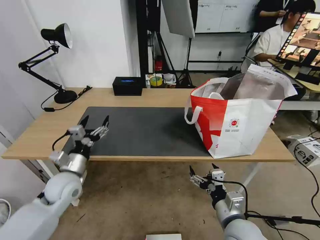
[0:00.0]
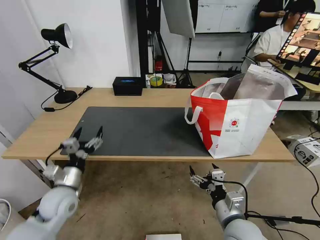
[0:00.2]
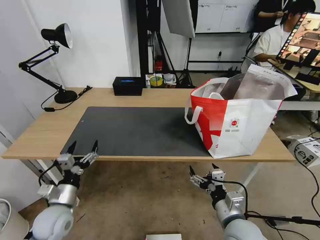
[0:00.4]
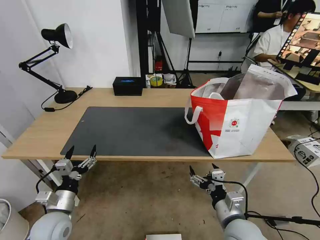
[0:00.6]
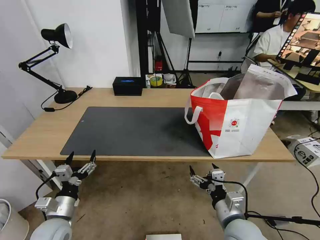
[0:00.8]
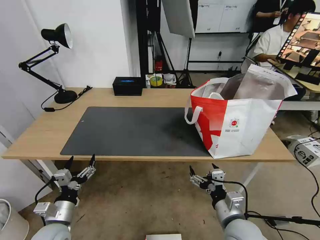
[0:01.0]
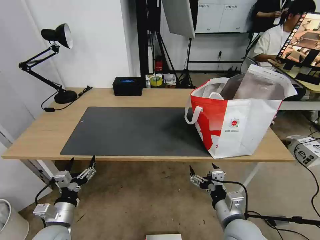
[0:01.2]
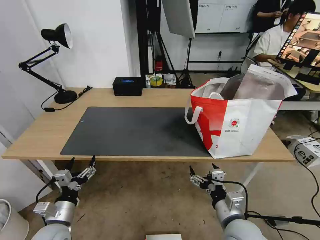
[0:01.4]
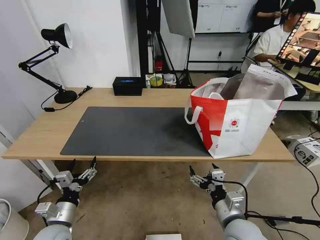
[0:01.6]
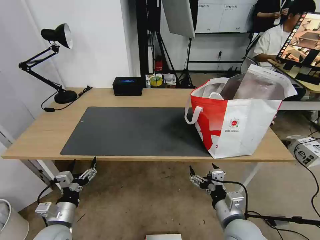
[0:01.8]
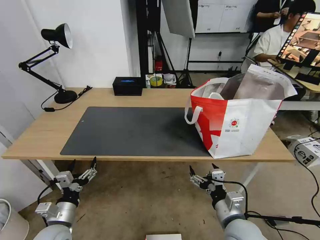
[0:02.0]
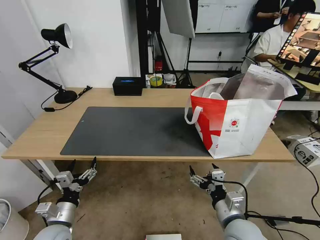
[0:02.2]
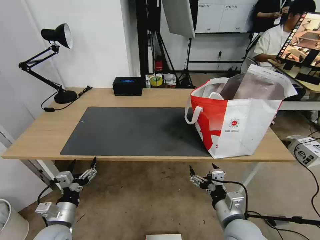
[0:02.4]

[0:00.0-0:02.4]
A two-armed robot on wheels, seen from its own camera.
Task of the whole recording: Pick up the trash from the table and place it into the takeout bag.
0:00.0 to 0:01.2: The left gripper moves backward and downward, about 15 cm.
0:01.2 to 0:02.4: Both grippers stay about where they are.

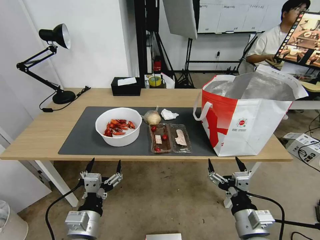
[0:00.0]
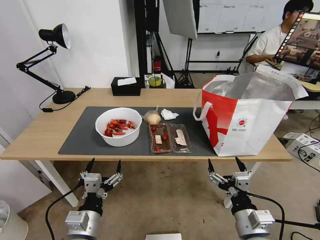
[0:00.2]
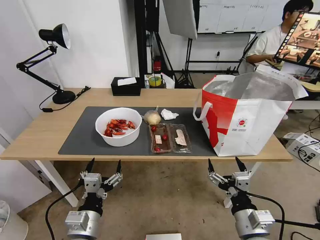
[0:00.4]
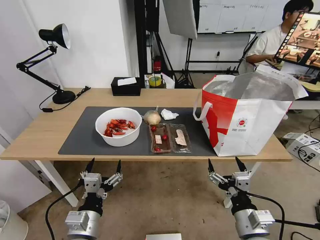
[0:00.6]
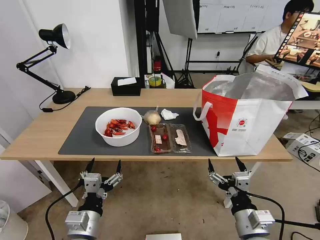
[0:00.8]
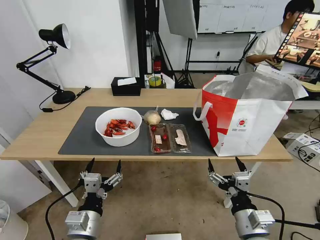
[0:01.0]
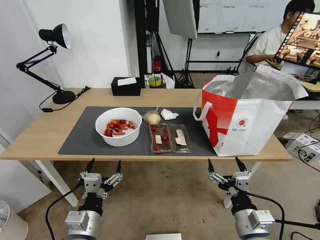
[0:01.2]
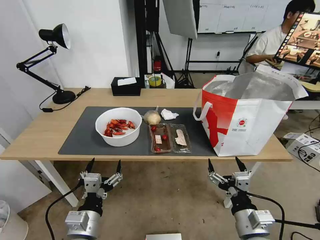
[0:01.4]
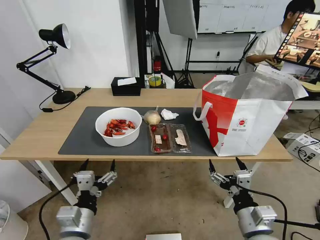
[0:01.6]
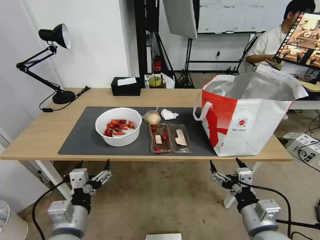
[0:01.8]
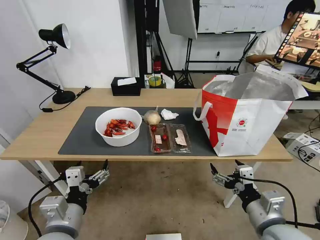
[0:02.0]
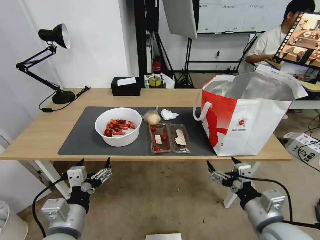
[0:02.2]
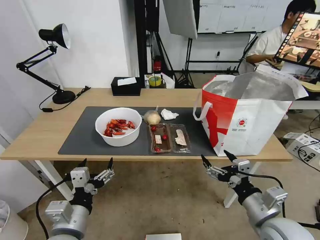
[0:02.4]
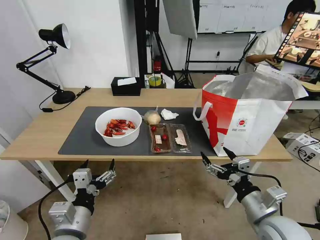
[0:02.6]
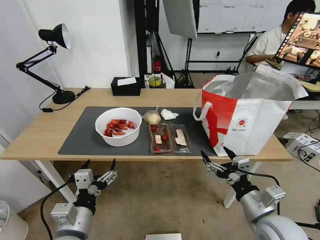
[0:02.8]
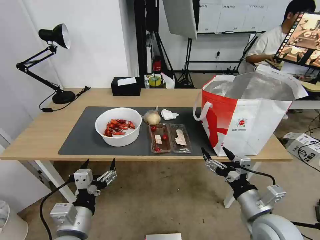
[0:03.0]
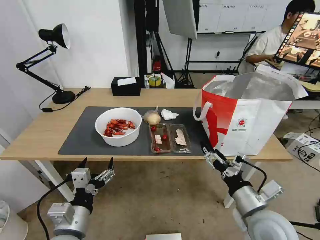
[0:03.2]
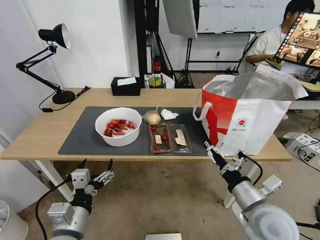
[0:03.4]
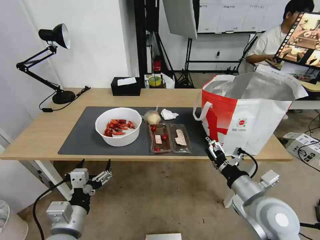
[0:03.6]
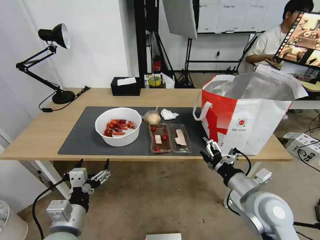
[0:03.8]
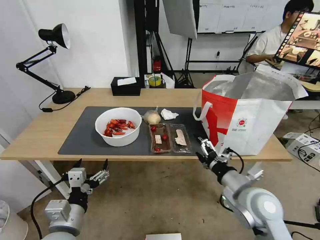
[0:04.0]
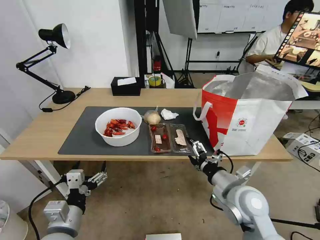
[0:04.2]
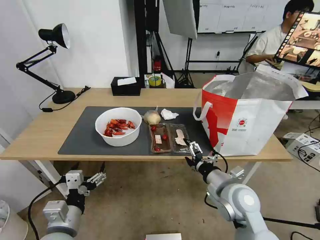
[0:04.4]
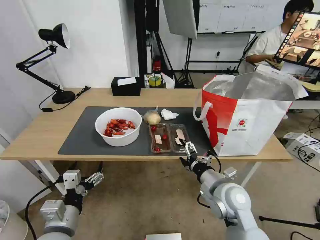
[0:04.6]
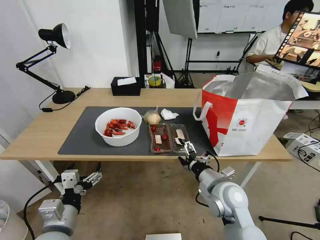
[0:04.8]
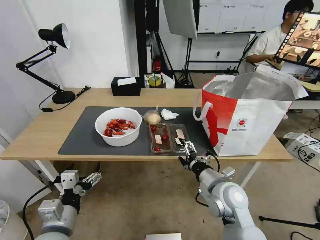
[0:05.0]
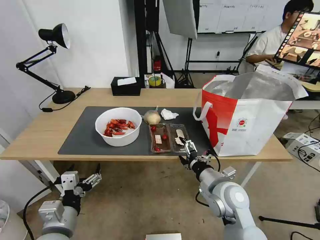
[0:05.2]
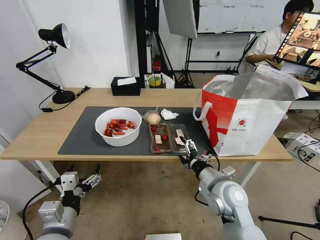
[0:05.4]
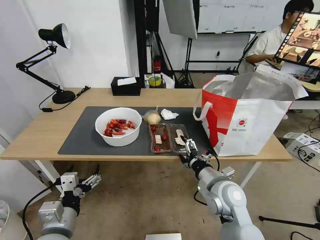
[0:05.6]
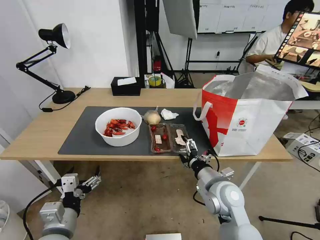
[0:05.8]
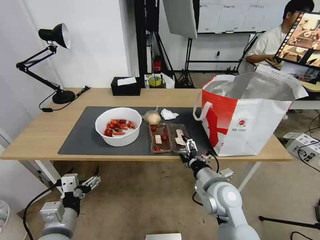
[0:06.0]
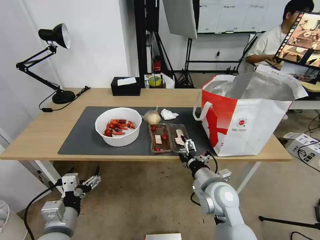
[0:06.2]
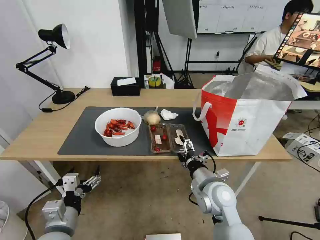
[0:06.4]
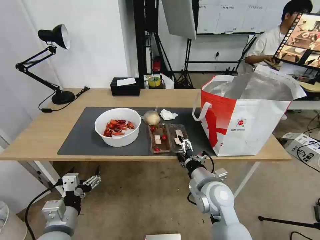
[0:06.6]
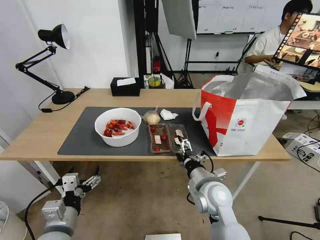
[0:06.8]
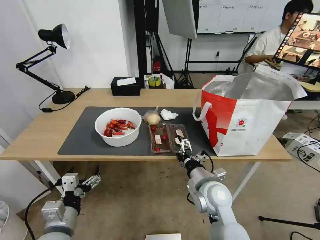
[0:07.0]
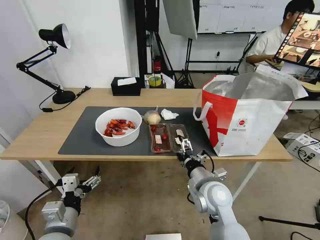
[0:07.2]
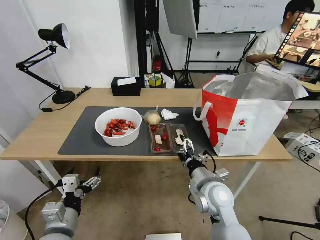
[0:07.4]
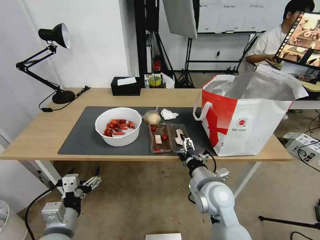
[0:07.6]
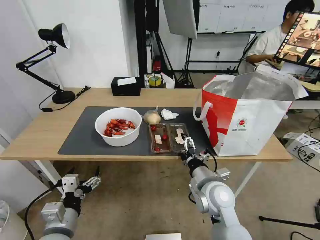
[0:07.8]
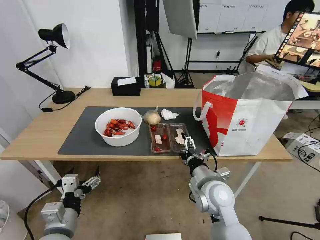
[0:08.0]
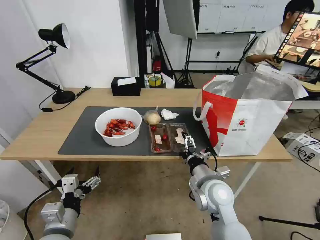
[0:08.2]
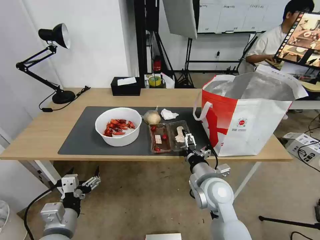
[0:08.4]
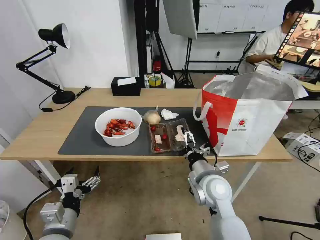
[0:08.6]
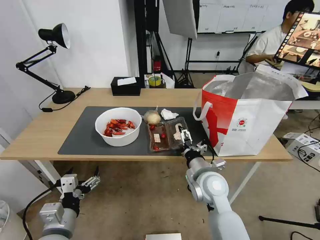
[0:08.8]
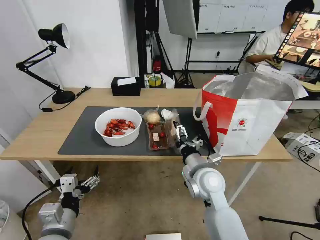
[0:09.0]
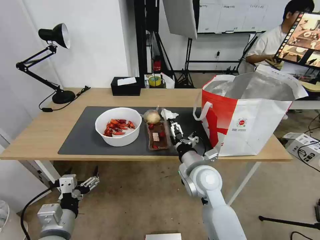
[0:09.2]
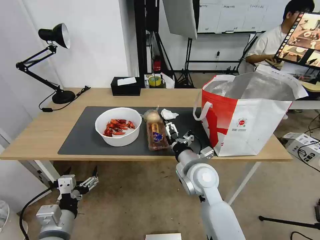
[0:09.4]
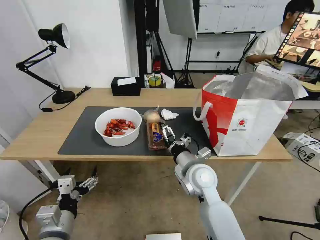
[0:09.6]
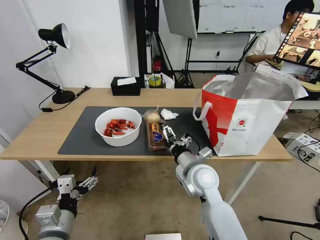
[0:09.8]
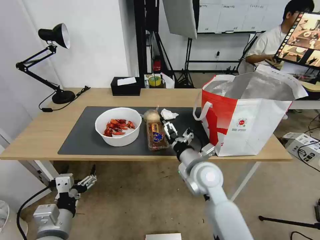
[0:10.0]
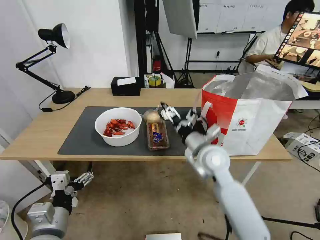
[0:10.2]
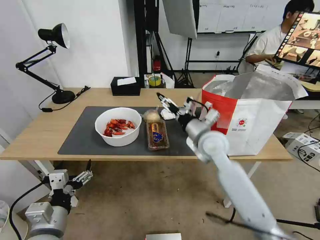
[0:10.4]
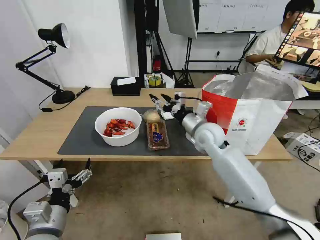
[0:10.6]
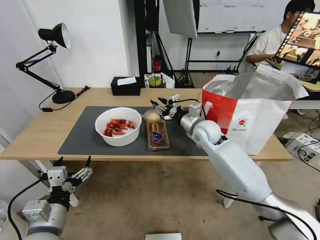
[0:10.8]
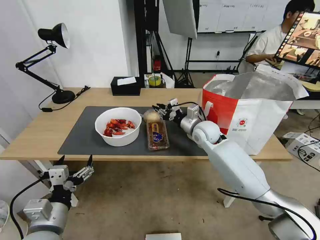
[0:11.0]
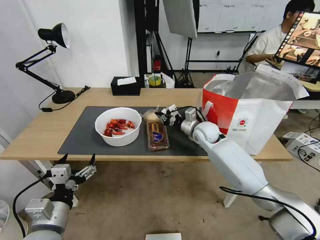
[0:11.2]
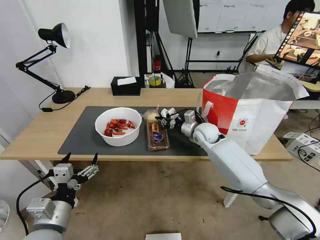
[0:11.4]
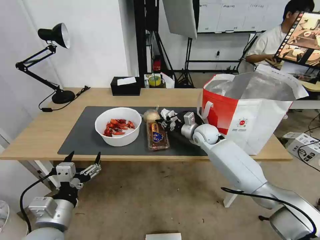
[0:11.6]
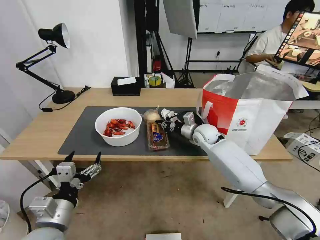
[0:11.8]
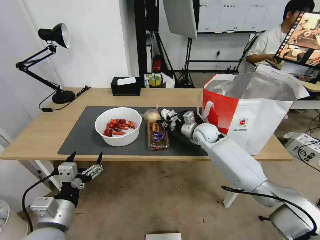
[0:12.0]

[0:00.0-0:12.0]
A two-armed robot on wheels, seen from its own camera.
Task of the whole recording: Pick up the trash from the table and place it into the takeout bag.
0:01.6 to 0:03.0: The right gripper moves approximately 5 cm.
0:03.0 to 0:04.4: The right gripper goes roughly 10 cm forward and to the left.
0:04.4 to 0:07.6: The grippers move only a little.
0:07.6 to 0:09.0: The grippers move only a little.
0:09.0 to 0:10.4: The right gripper is displaced forward and upward by about 10 cm.
0:10.4 to 0:12.0: The right gripper is displaced forward and downward by approximately 15 cm, and closes.

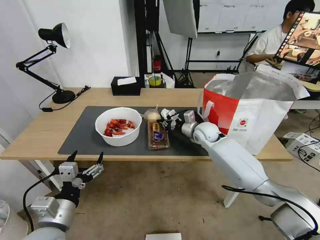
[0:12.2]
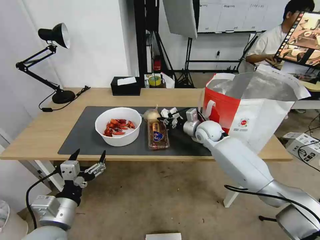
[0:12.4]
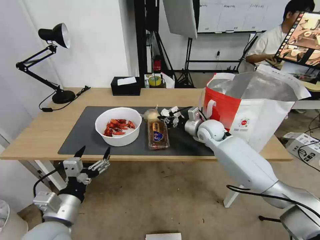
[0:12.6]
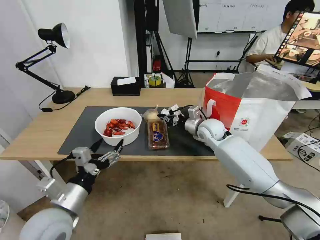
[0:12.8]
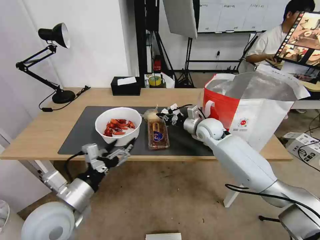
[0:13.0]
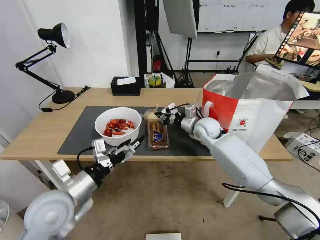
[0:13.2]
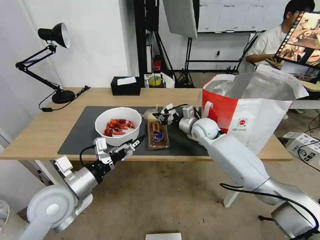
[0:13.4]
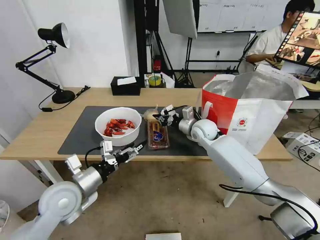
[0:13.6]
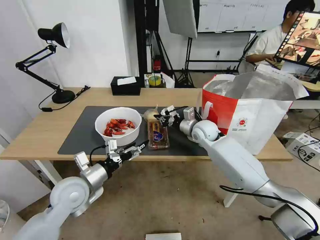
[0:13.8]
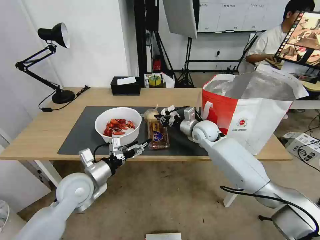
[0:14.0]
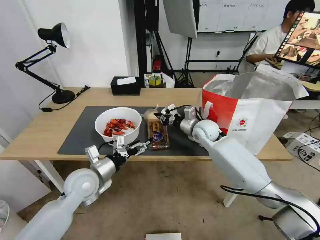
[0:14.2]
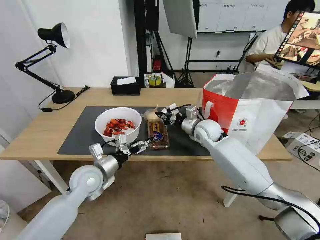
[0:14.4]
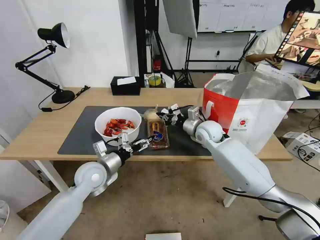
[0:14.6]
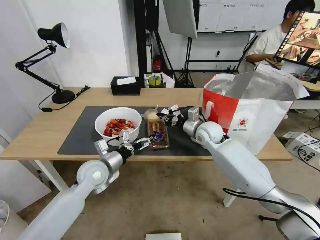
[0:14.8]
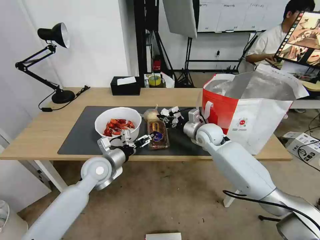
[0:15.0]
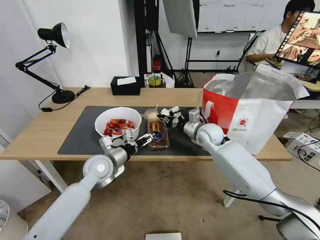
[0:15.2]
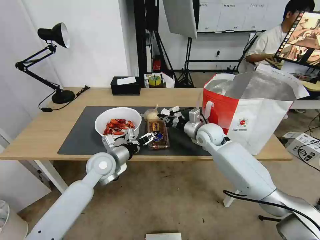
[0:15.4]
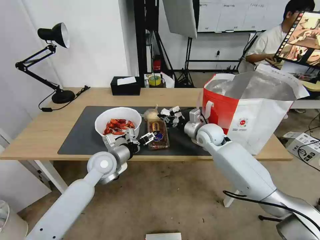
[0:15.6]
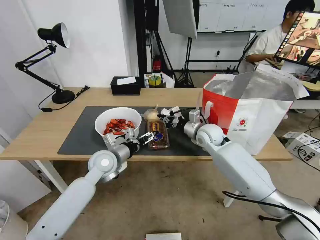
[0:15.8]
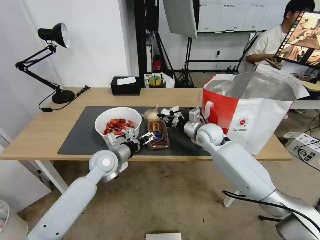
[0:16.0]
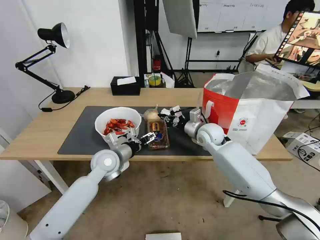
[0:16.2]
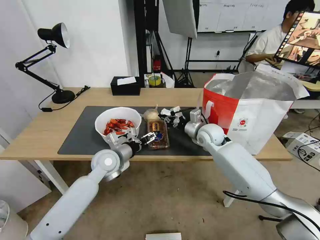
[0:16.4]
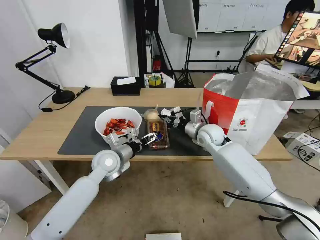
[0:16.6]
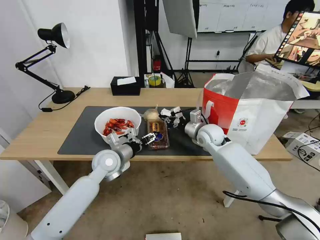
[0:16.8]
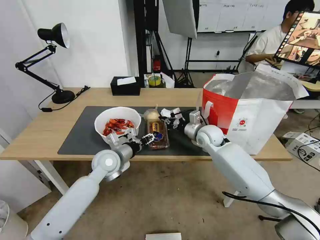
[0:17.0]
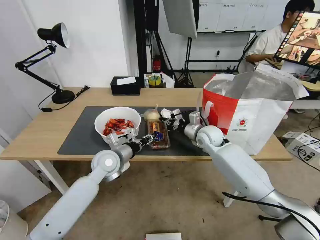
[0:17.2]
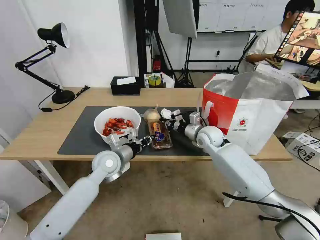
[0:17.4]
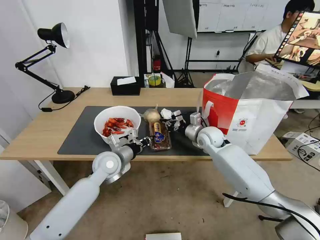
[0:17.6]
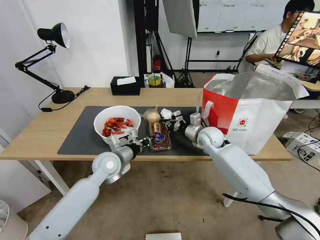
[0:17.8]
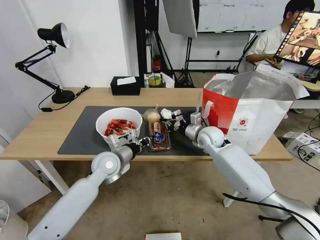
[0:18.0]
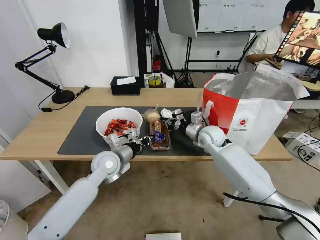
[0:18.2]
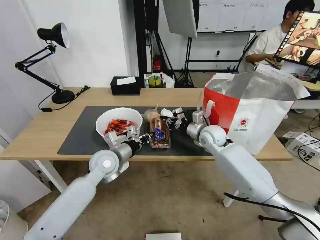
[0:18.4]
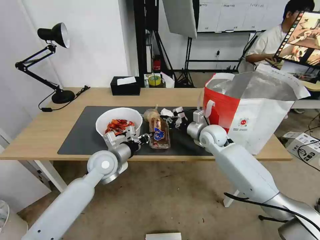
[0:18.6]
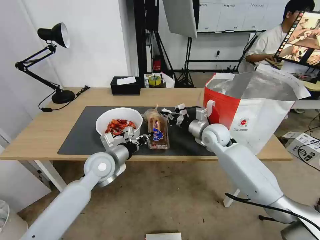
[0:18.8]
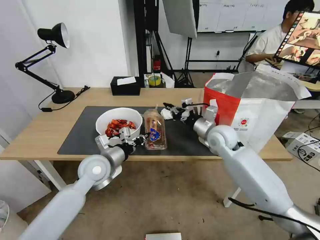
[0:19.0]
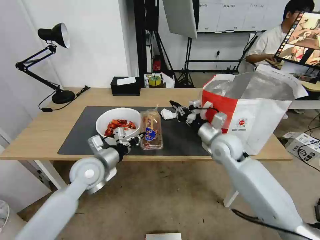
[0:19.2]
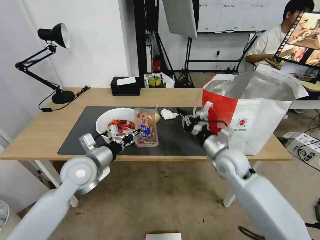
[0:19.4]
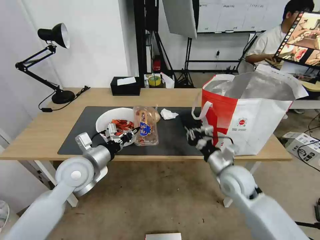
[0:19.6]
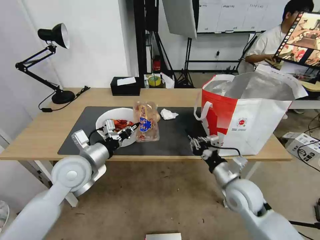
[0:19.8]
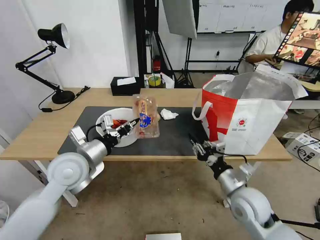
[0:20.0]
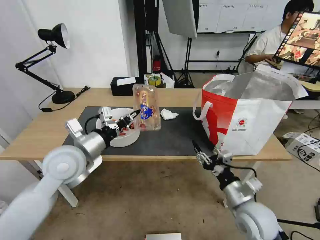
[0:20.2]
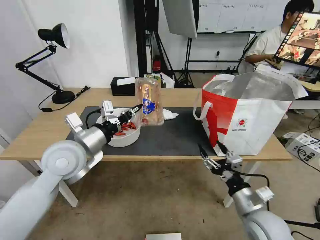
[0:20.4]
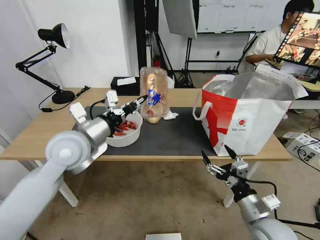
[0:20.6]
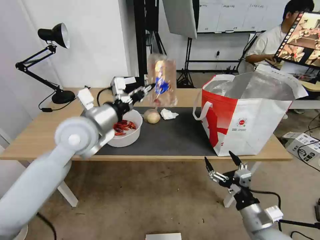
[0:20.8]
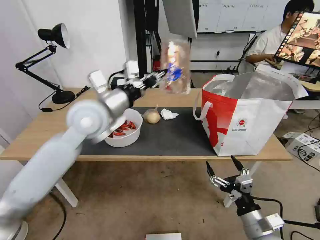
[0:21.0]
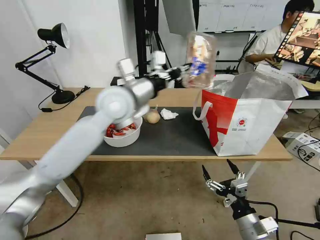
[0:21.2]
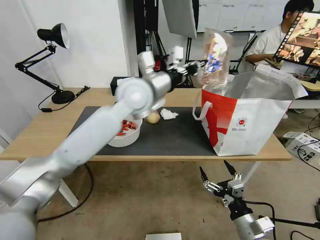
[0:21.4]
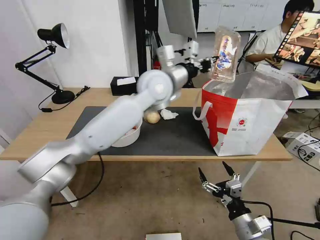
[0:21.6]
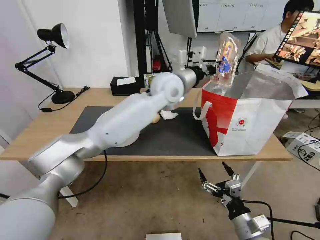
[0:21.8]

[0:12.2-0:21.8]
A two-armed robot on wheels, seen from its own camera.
Task of the whole recording: Pick up the trash from the table and place it into the takeout bag.
0:12.2 to 0:13.8: The left gripper shifts about 10 cm forward.
0:13.8 to 0:15.4: The left gripper is displaced forward and to the right by some 10 cm.
0:15.4 to 0:17.0: The left gripper closes.
0:17.0 to 0:18.6: The left gripper closes.
0:18.6 to 0:20.2: The left gripper travels upward, backward and to the left by about 10 cm. Meanwhile the right gripper heads backward, covering some 25 cm, and opens its fingers.
0:20.2 to 0:21.8: The right gripper goes about 10 cm backward and downward, and opens its fingers, while the left gripper shifts approximately 35 cm to the right, forward and upward.
